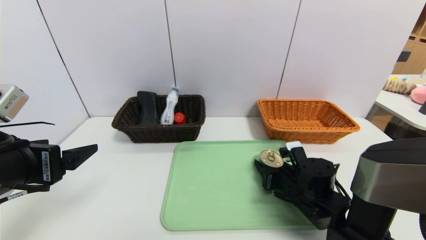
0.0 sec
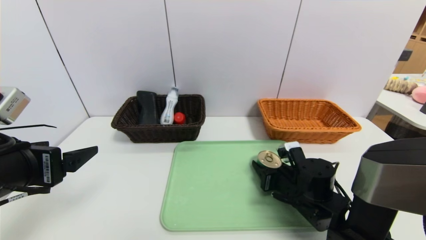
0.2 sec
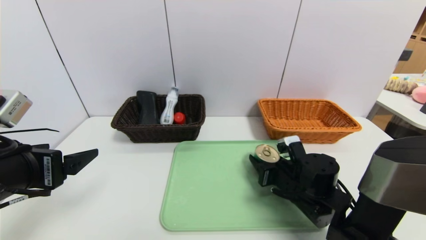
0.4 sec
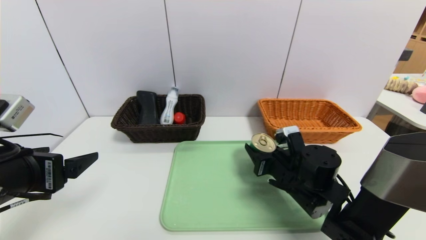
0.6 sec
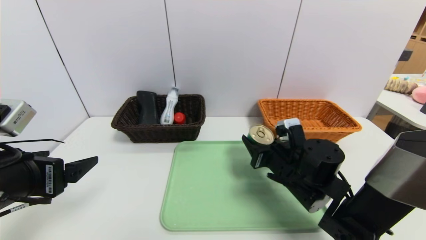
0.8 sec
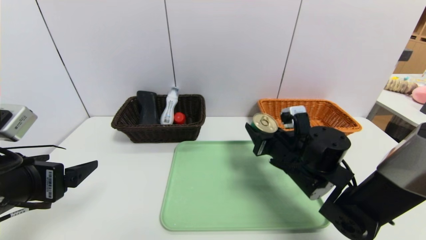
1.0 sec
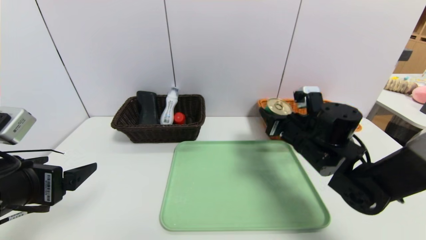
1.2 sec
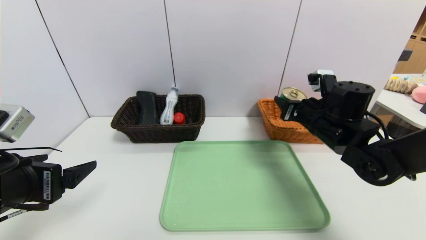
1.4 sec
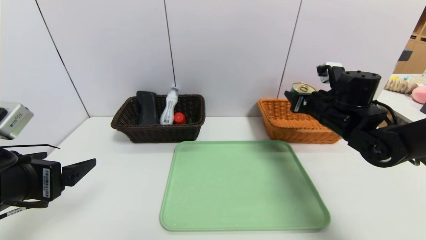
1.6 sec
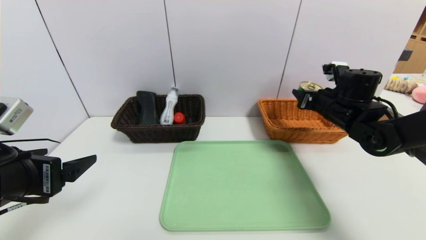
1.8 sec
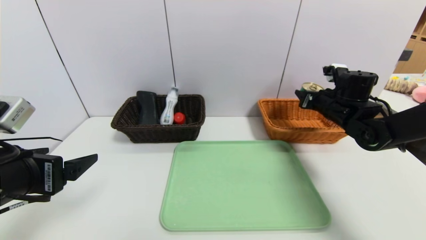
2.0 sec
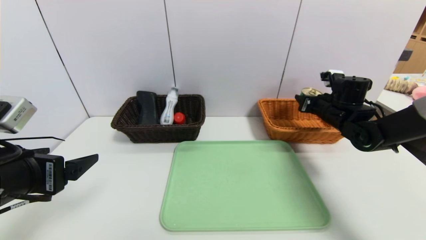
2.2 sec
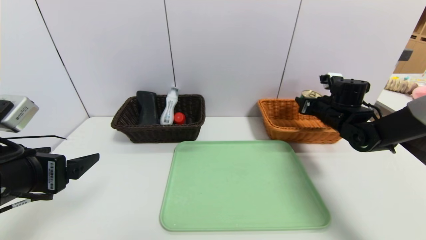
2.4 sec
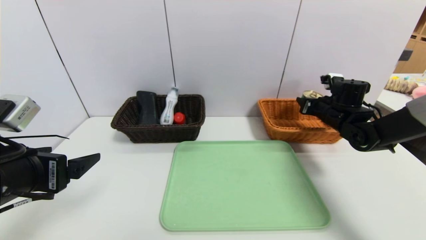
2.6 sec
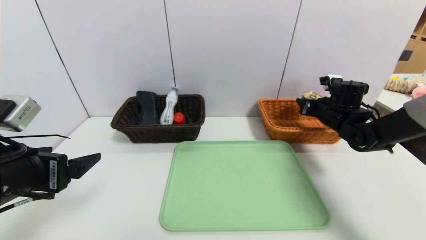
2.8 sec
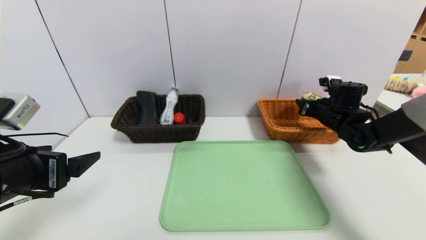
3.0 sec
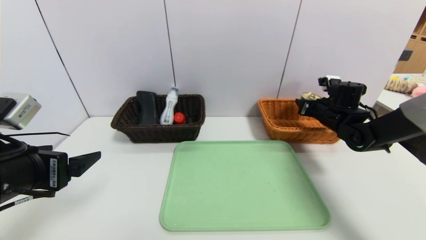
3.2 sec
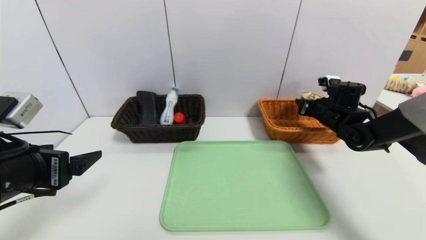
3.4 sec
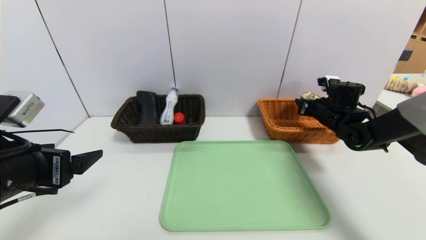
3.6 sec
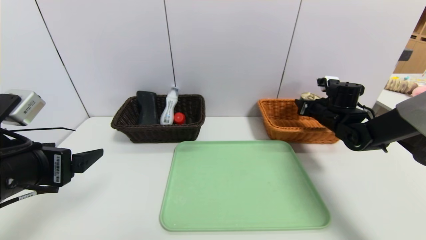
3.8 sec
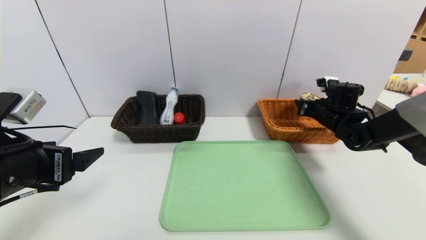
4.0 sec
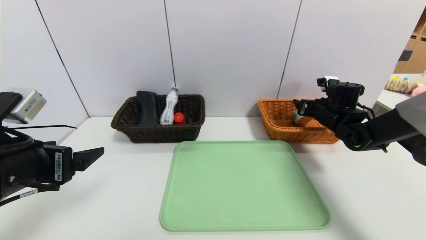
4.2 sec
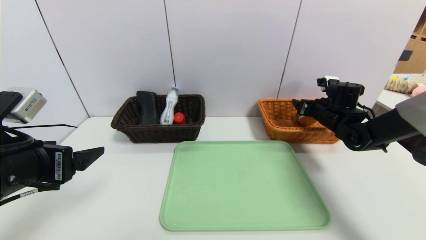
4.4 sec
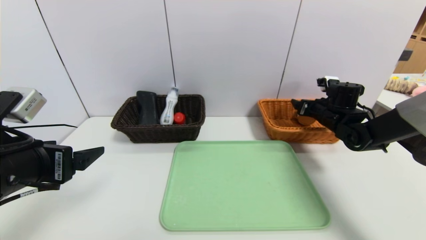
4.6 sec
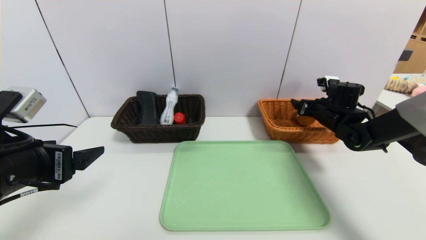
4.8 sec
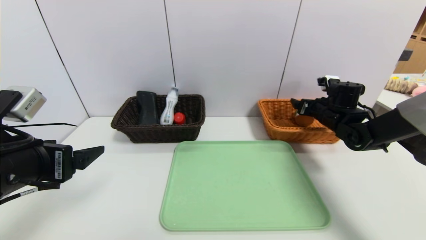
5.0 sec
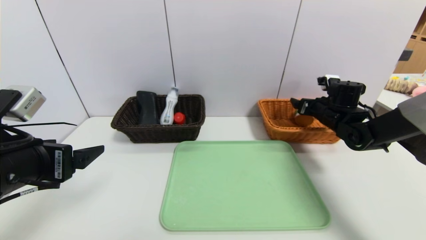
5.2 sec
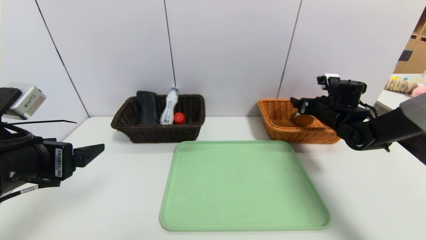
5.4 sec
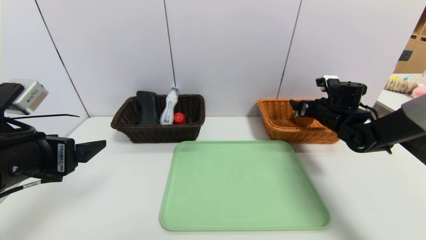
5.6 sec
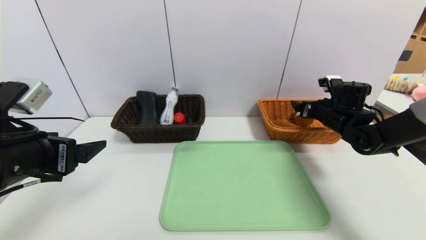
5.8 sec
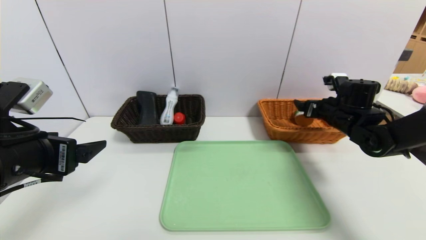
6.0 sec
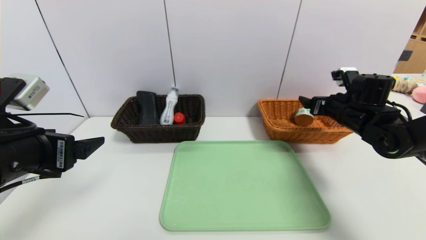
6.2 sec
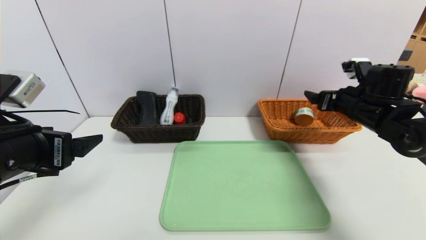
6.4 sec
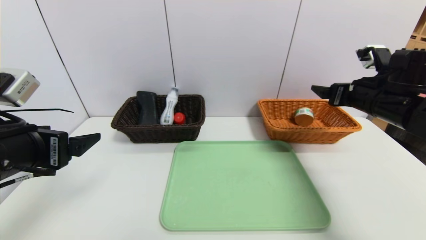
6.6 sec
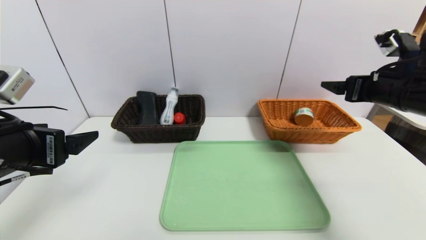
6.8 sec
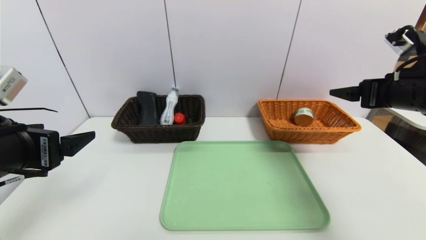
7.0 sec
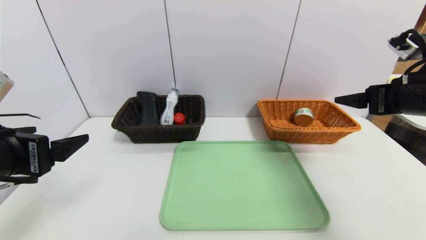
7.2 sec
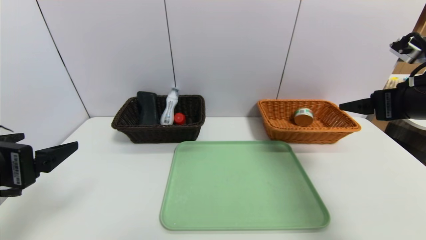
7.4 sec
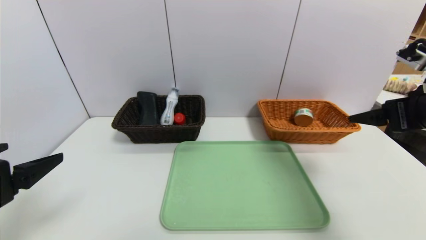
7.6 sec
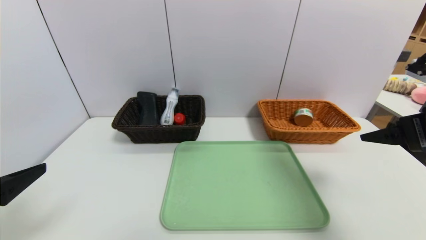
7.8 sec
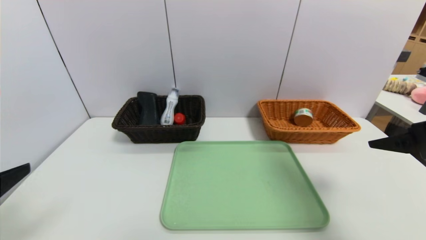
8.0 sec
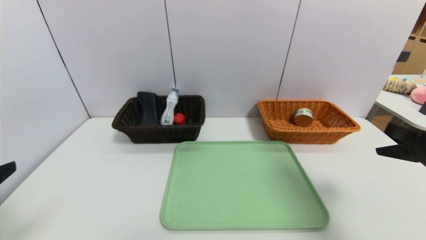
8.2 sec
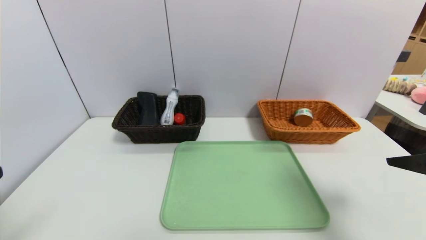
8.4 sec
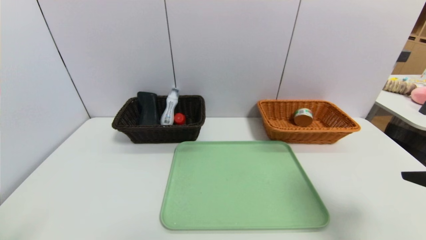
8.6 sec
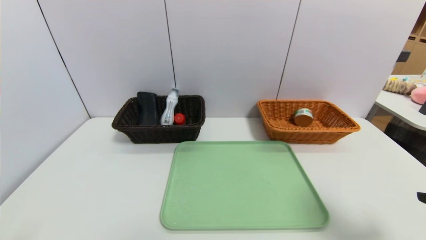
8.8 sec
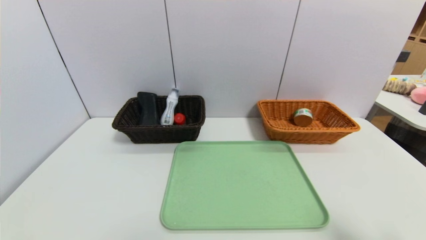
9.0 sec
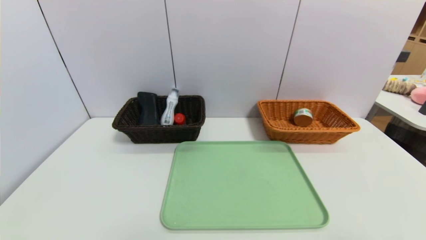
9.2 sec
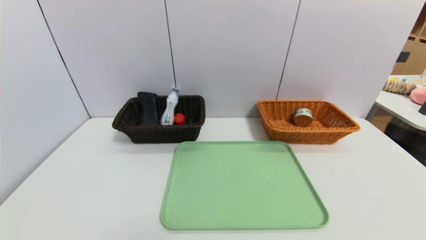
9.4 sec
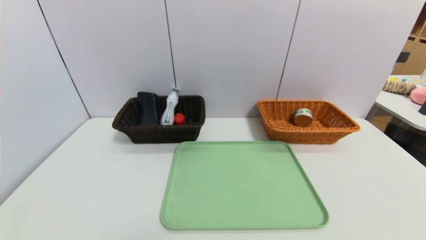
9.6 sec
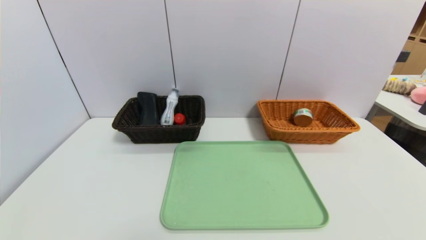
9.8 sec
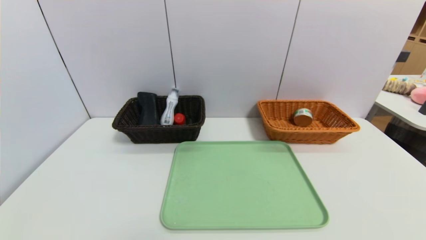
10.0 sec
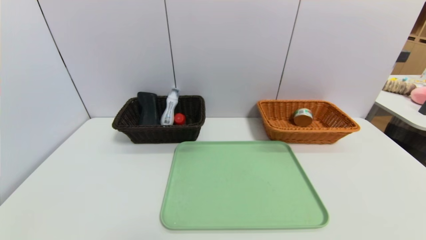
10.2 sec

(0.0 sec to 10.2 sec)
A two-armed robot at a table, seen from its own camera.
Task of the whole recording: place the food in the right basket with the right gripper, and place the non food items in the left basket with the left gripper.
Step, 0.0 sec - 6.0 sec: Grasp the can and put it in the right basket.
0.0 sec - 1.4 sec: The right gripper heads upward and forward, covering approximately 15 cm.
1.4 sec - 3.0 sec: The right gripper goes some 15 cm forward and to the right.
3.0 sec - 4.4 sec: The right gripper opens its fingers.
4.4 sec - 5.8 sec: The grippers move only a little.
5.8 sec - 7.2 sec: The right gripper goes some 20 cm backward and upward.
7.2 sec - 8.8 sec: The grippers both shift backward by about 15 cm.
8.8 sec - 10.2 sec: The right gripper goes about 20 cm backward and downward.

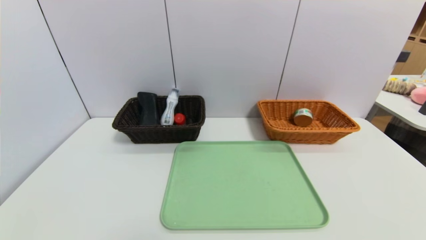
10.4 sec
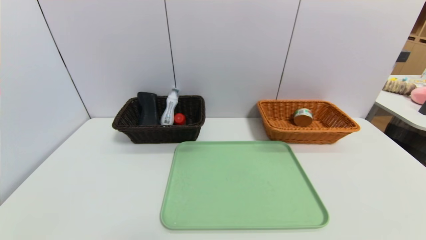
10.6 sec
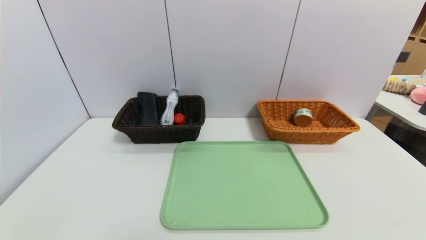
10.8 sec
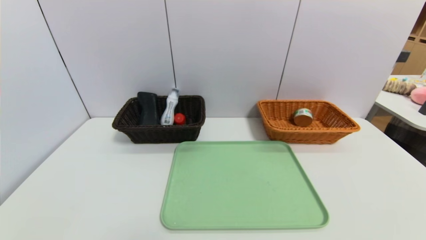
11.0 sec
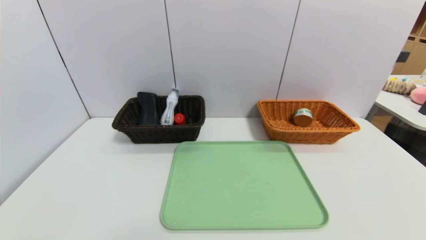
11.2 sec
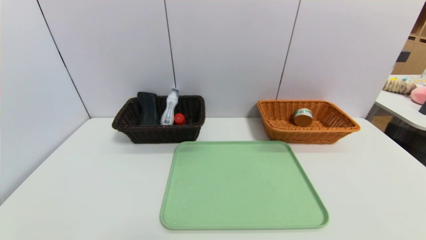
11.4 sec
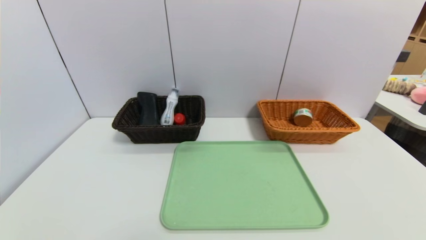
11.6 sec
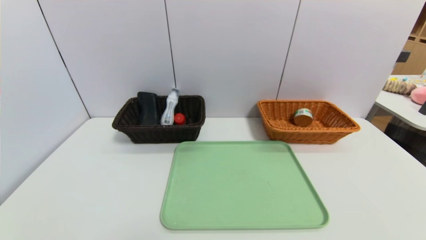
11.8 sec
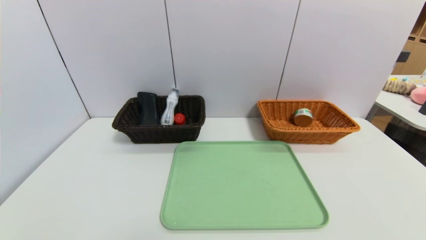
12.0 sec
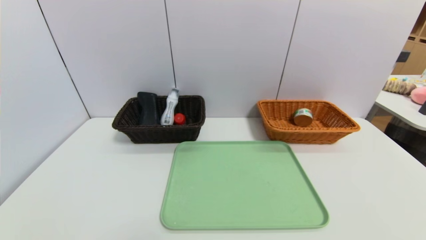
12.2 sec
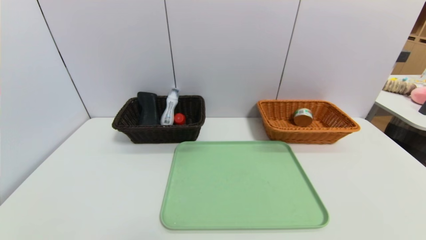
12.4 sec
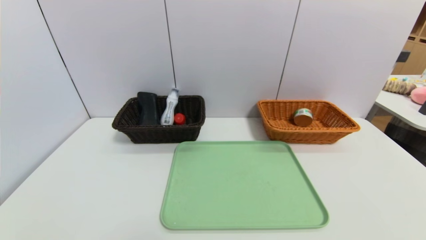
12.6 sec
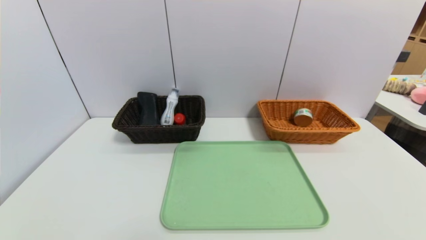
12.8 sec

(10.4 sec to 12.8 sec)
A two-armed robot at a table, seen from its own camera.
Task of the whole recording: place the food in the right basket with the right gripper, and place the non food items in the left basket with the left gripper.
11.6 sec - 12.8 sec: Both grippers stay about where they are.

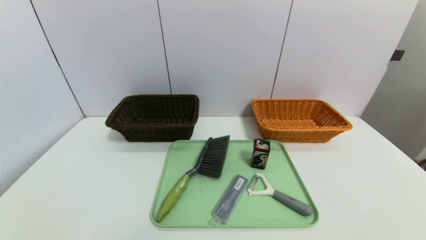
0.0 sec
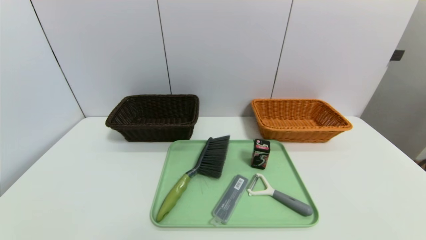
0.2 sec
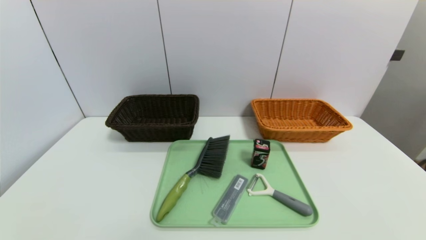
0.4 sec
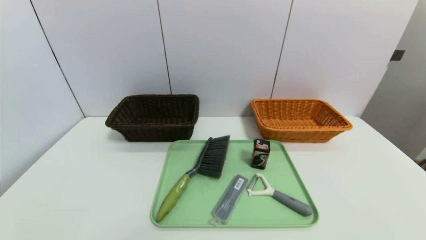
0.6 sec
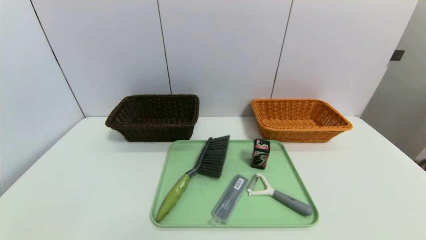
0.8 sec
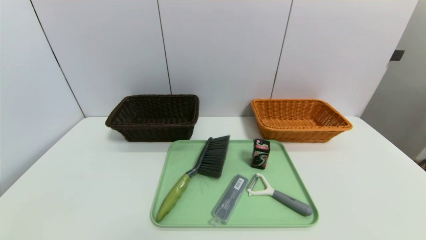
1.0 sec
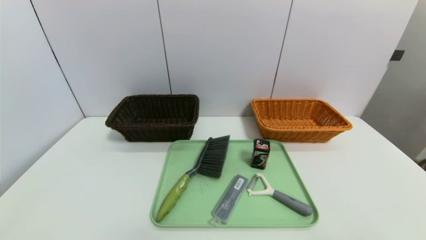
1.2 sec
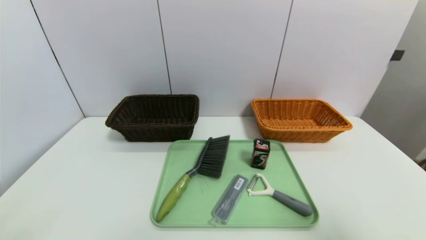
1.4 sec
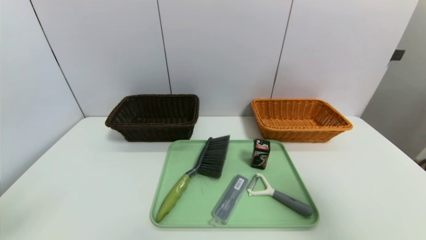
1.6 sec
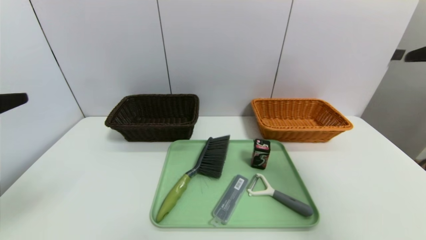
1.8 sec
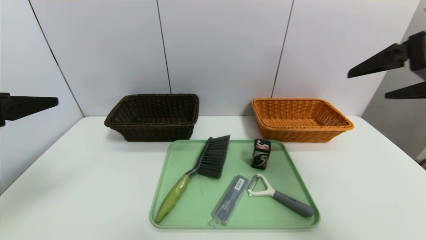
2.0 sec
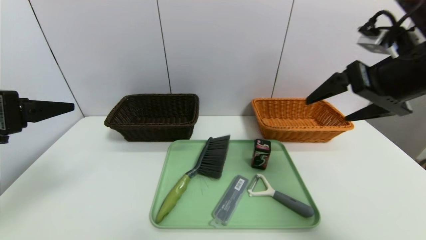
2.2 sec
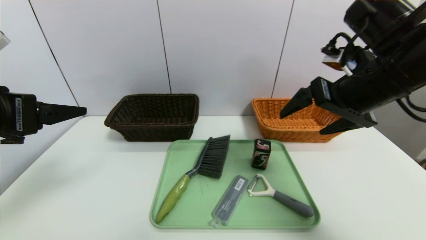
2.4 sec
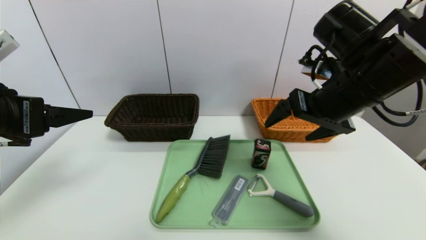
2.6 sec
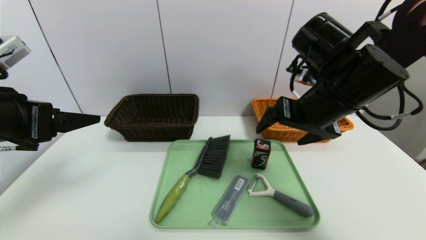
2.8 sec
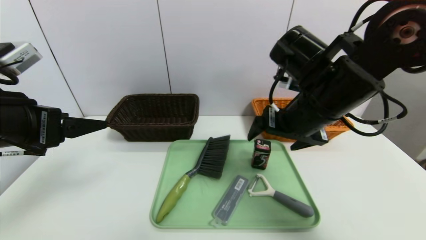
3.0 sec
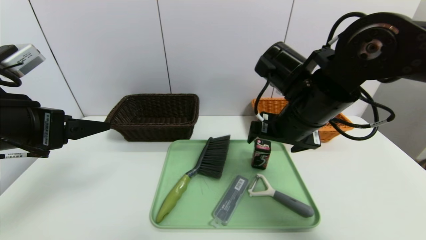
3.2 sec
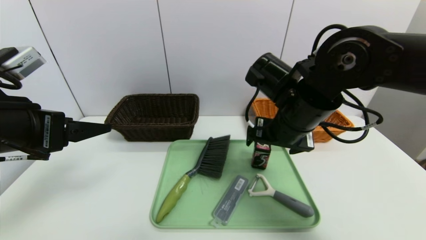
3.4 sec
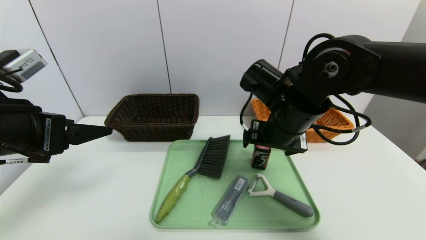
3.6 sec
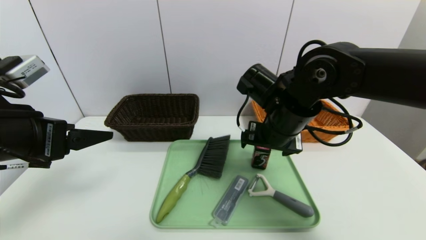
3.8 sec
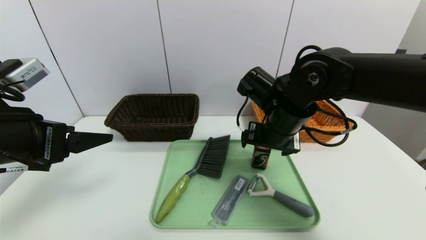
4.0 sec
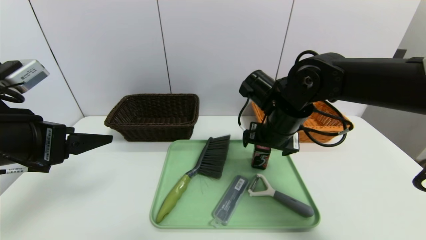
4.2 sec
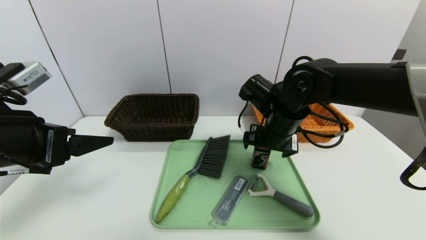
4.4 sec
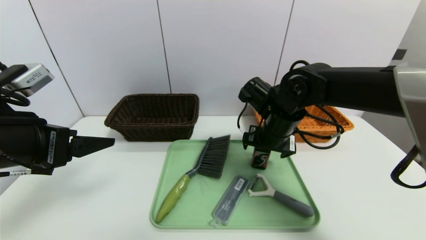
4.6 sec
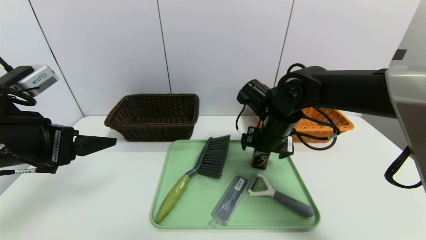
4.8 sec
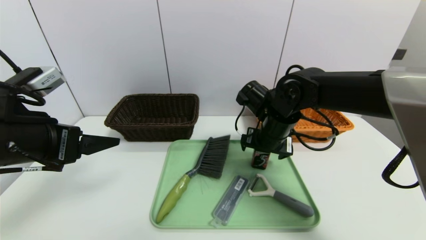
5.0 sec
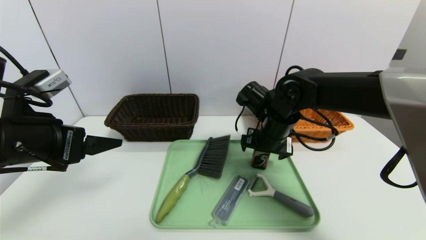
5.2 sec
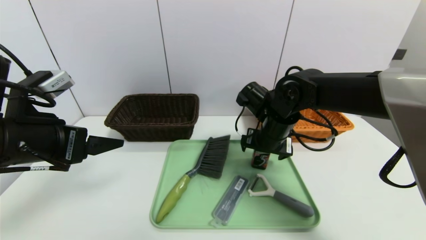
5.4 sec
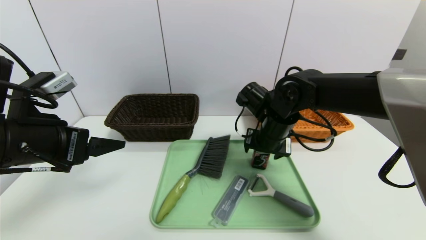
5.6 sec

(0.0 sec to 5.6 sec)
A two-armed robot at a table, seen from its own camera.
Task of the whole recording: place the food in the right basket with the right gripper, and place the non food items in the left basket with the left gripper.
0.0 sec - 1.4 sec: The right gripper travels upward by some 25 cm.
1.4 sec - 2.8 sec: The right gripper is displaced forward and to the left by approximately 30 cm. Meanwhile the left gripper moves forward, roughly 15 cm.
2.8 sec - 4.2 sec: The right gripper goes roughly 10 cm downward and forward.
4.2 sec - 5.6 sec: The grippers make only small movements.
